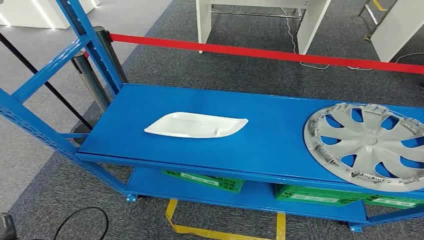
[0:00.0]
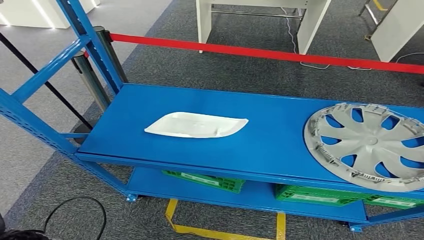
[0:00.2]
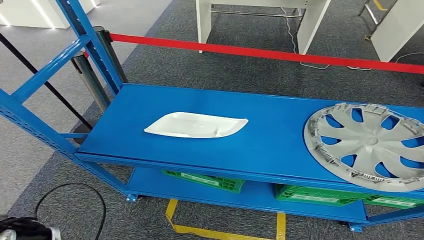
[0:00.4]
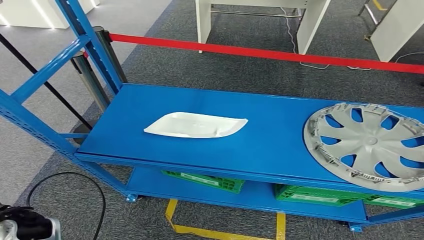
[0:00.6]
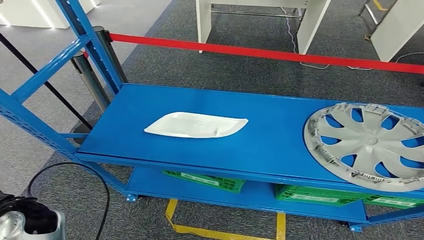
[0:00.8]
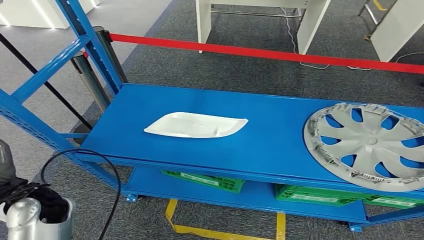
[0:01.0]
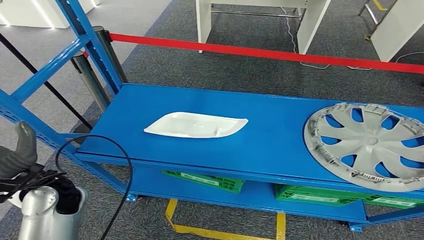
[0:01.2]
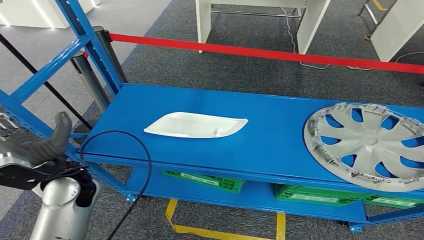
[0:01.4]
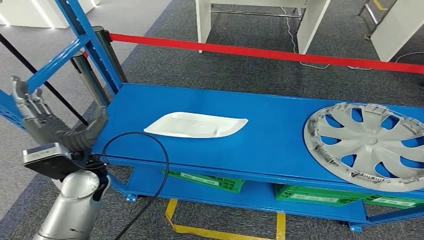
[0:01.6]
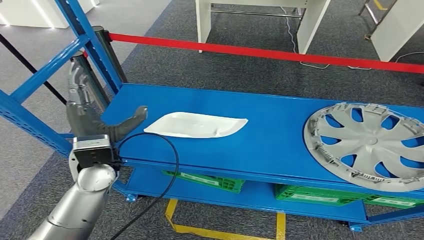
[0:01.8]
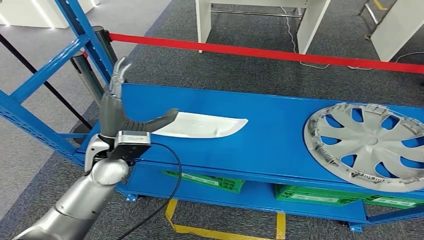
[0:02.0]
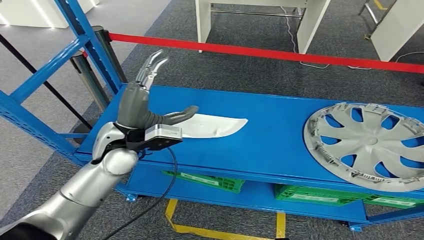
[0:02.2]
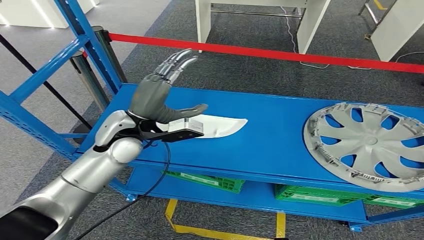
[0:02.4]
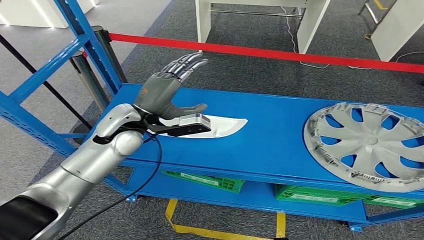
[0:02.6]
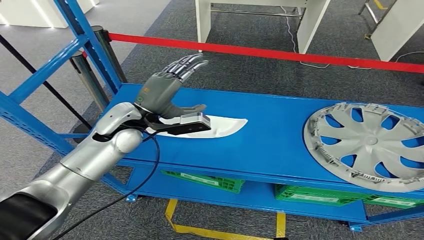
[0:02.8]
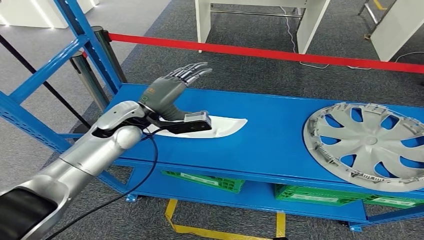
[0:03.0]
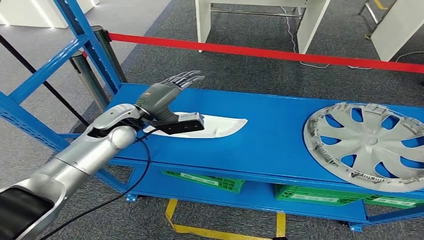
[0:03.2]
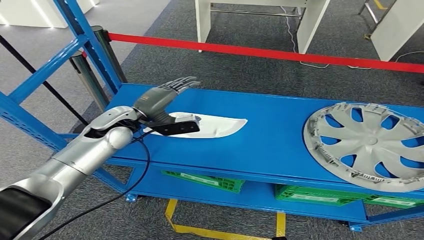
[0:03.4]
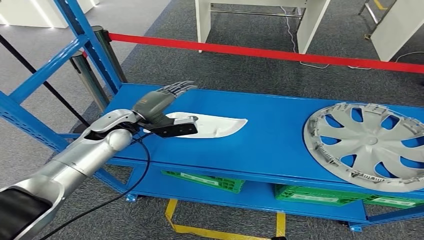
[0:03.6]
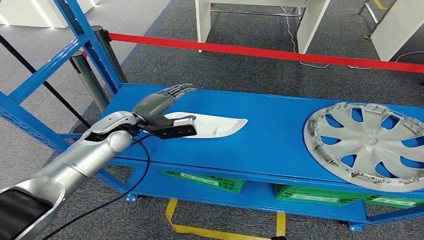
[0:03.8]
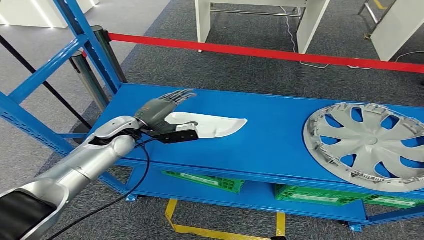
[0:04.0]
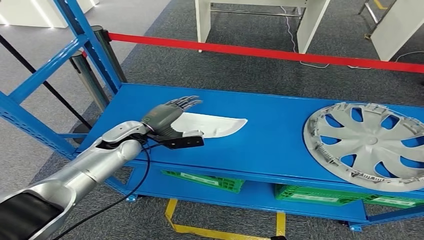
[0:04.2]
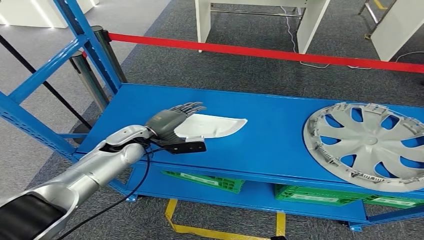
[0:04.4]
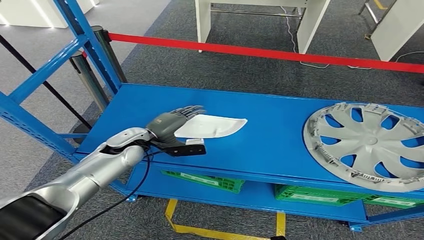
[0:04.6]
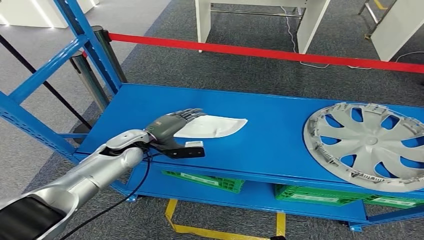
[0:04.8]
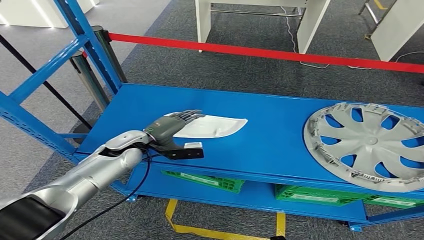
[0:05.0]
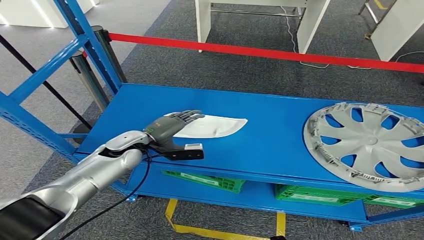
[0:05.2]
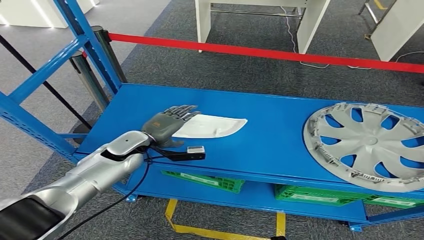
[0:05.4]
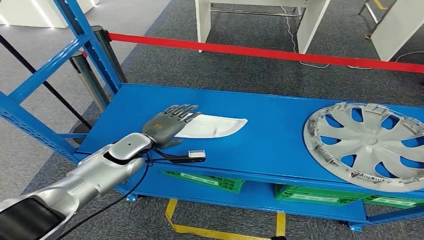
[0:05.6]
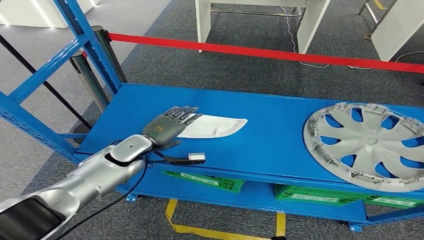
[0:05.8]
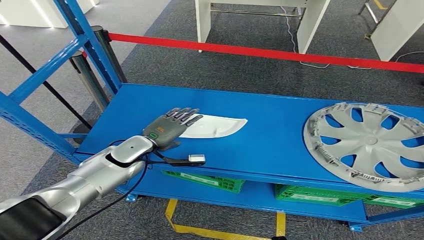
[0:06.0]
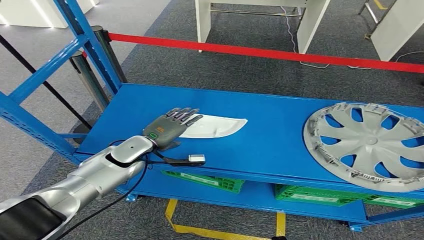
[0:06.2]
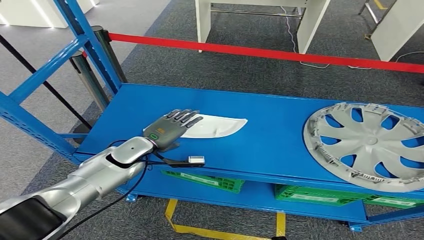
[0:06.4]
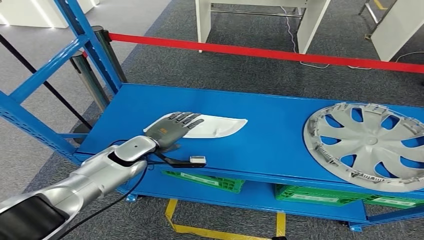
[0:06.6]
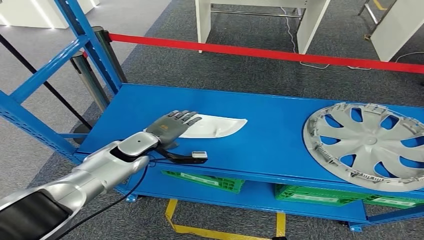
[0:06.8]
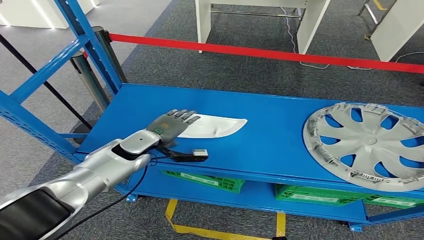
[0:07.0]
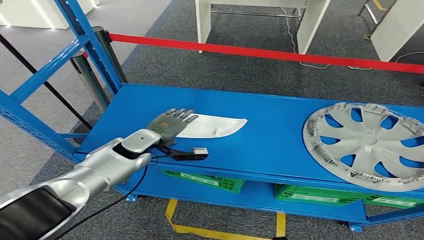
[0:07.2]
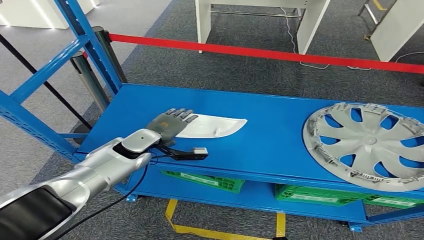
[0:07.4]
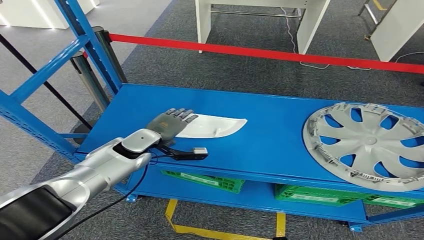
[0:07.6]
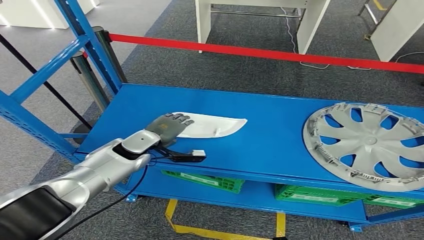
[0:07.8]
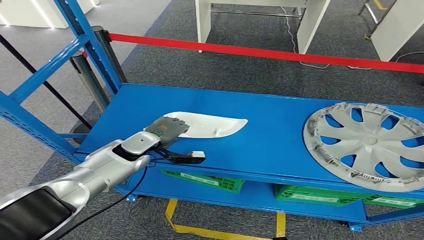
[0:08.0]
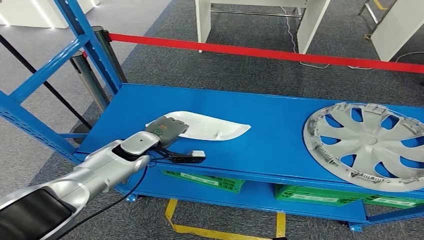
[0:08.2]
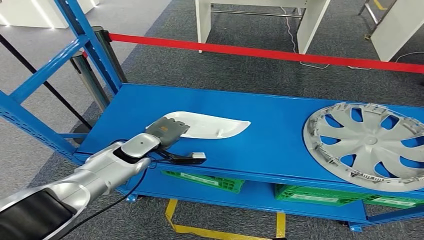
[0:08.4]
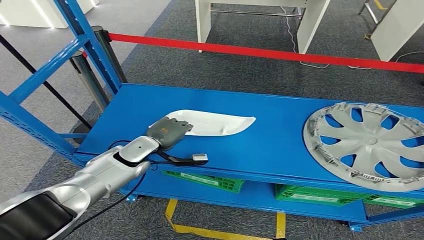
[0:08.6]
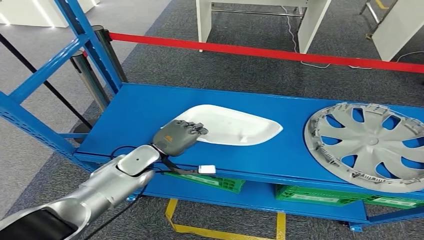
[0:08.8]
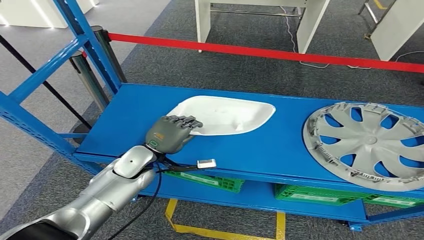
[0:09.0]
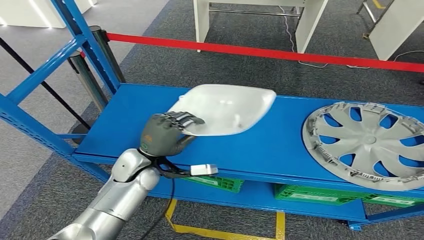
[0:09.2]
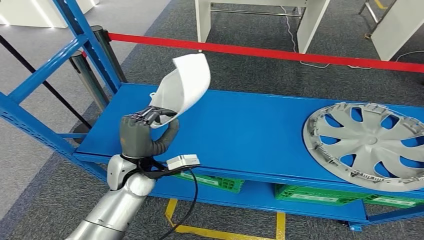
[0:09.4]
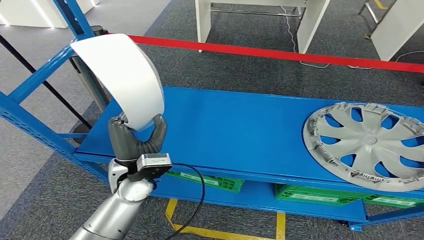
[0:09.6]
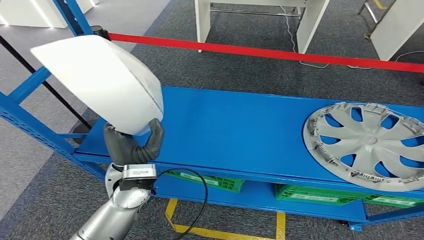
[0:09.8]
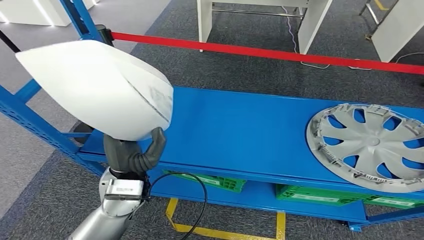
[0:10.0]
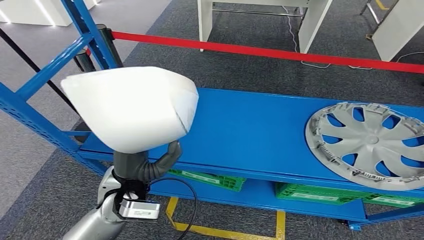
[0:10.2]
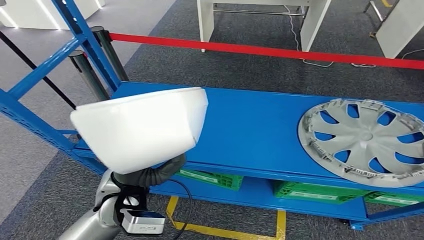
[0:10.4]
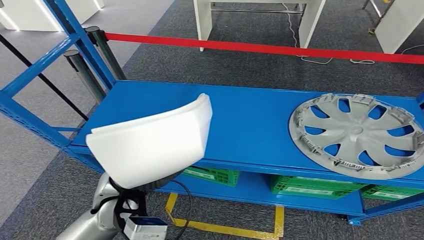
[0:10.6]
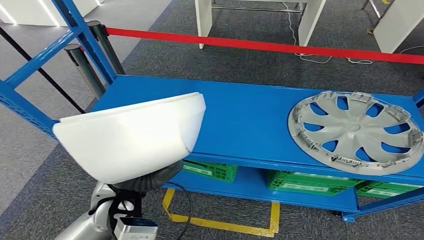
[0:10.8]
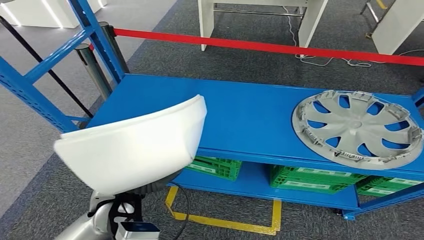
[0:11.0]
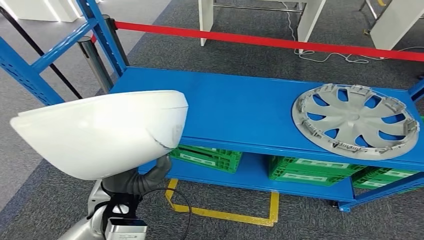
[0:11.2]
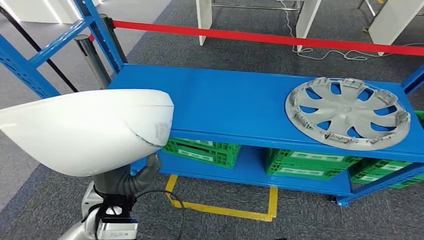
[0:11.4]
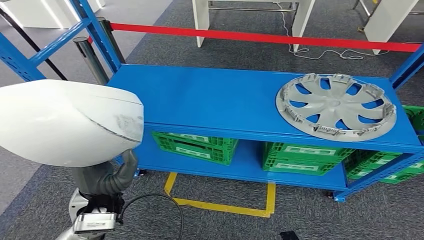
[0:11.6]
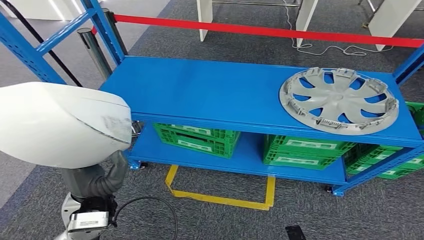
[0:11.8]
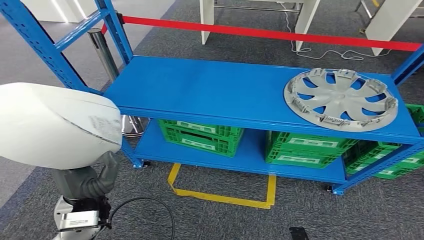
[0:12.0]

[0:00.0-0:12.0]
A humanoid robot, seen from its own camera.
0:01.6 to 0:03.0: The left hand goes about 15 cm forward and to the right.
0:03.0 to 0:04.4: The left hand goes approximately 10 cm downward.
0:06.0 to 0:07.6: The hands move only a little.
0:07.6 to 0:09.0: The left hand travels backward by some 5 cm.

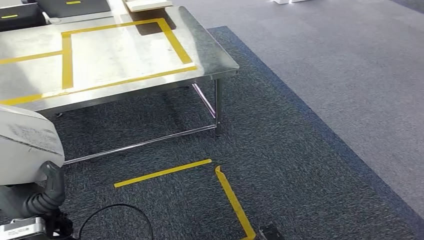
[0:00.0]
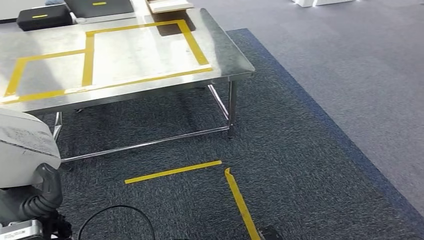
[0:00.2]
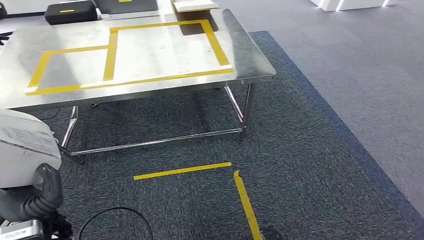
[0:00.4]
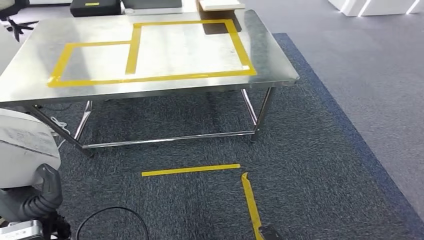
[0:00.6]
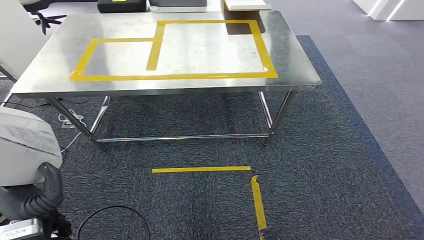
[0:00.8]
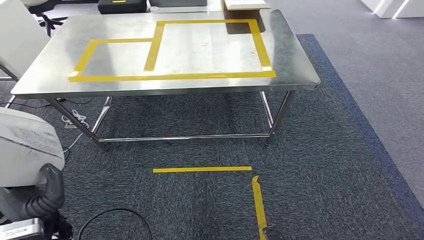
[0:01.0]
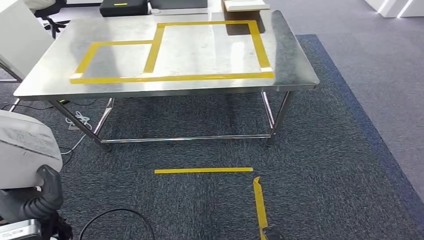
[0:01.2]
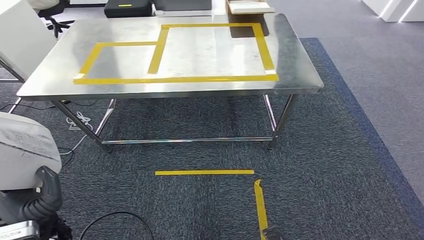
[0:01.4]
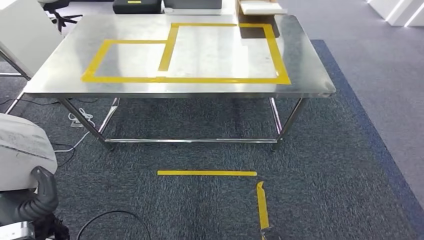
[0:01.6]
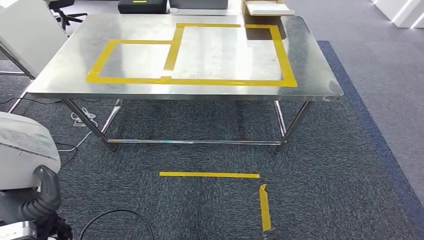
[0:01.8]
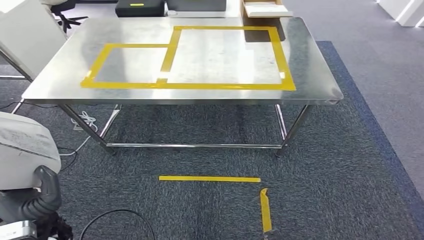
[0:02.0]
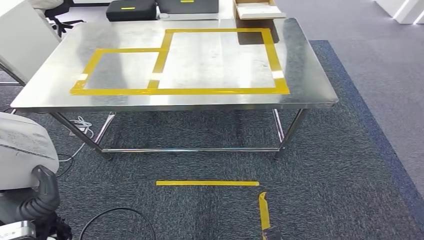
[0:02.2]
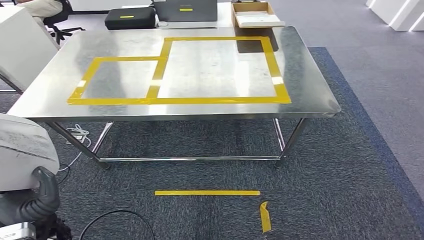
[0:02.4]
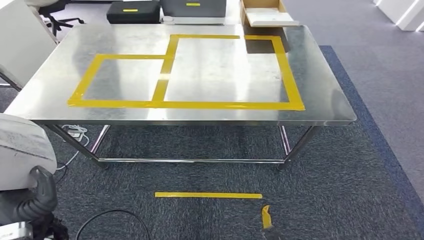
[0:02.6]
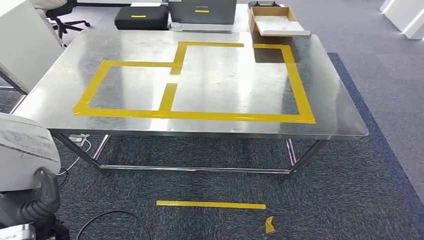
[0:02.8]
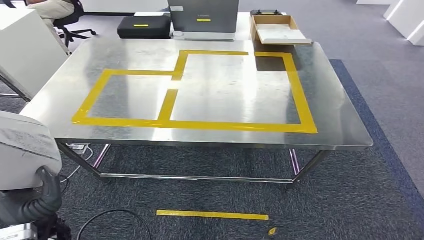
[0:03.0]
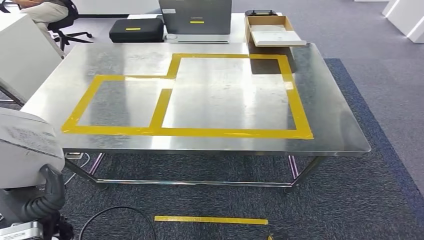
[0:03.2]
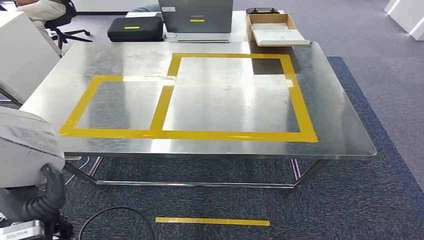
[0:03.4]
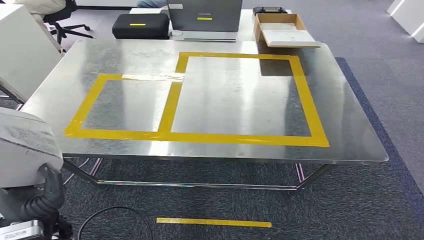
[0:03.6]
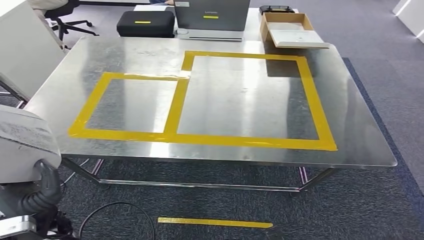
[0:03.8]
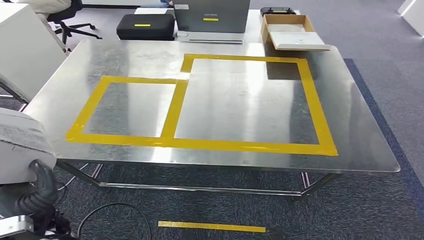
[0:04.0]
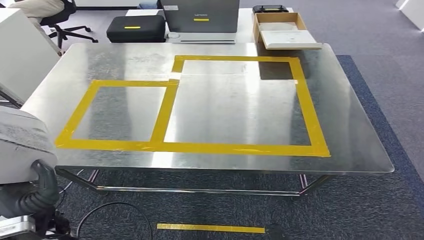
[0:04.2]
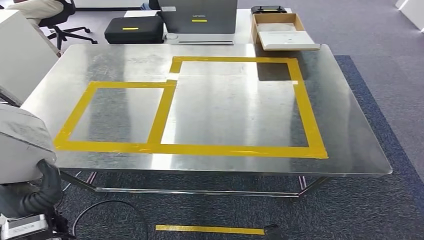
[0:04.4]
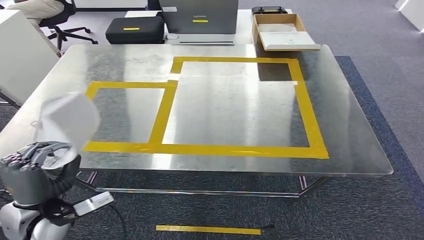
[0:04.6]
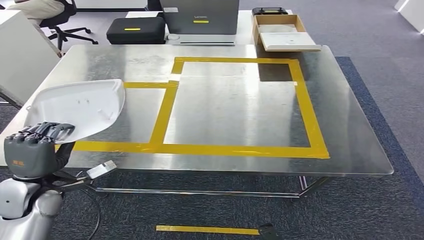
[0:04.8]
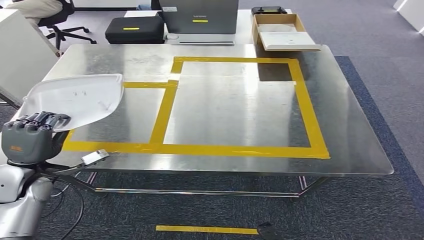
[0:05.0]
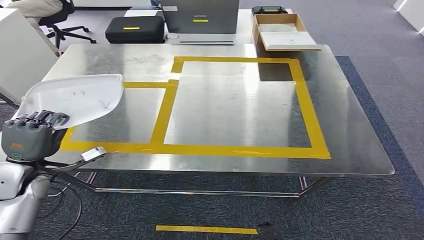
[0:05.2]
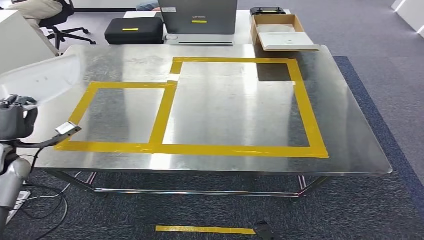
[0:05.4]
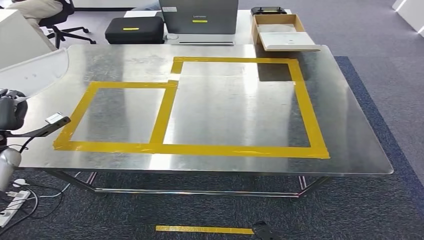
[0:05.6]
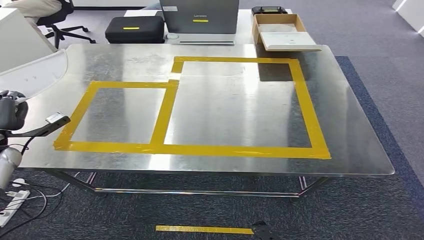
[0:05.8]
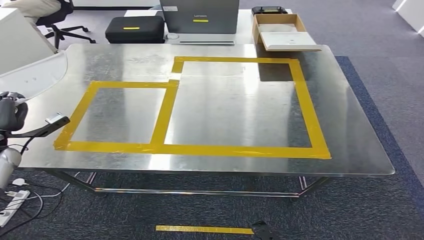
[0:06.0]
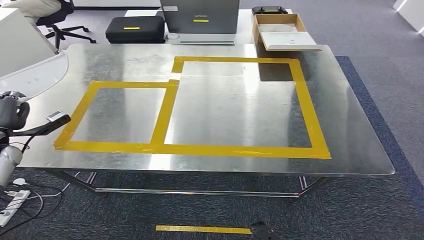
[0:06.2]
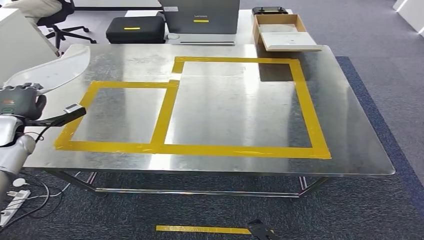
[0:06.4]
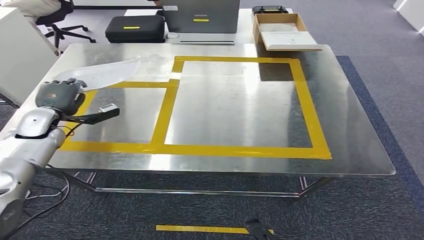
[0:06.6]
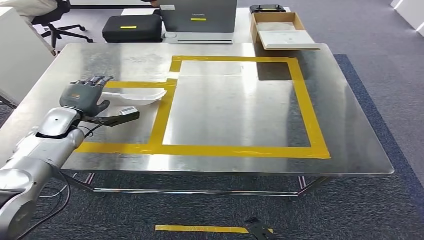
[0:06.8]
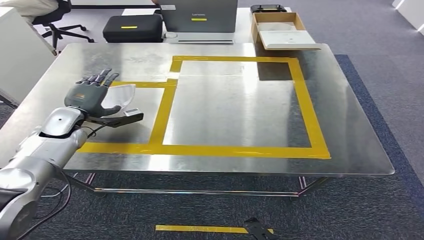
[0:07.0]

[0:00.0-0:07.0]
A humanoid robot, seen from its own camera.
Step, 0:00.0 to 0:04.0: Move the small parts to the workbench.
0:04.2 to 0:05.6: The left hand travels forward and to the left by roughly 30 cm.
0:05.6 to 0:07.0: The left hand heads to the right and forward, covering roughly 15 cm.
